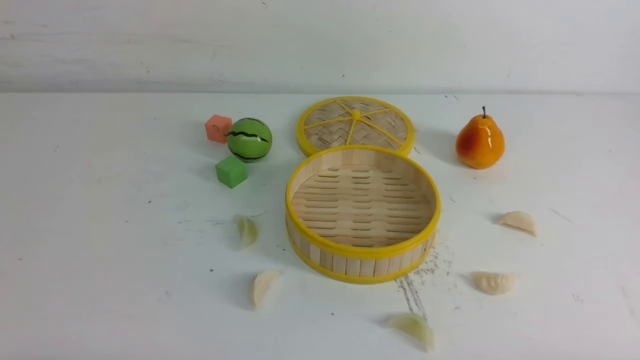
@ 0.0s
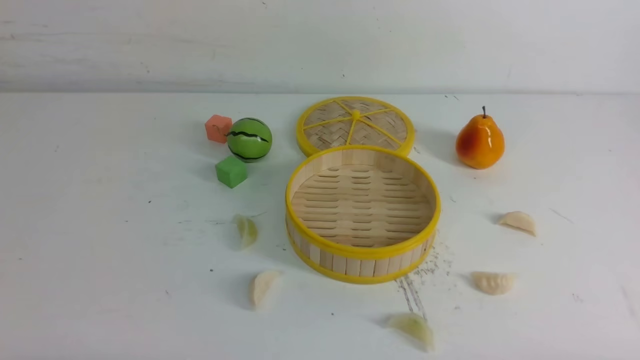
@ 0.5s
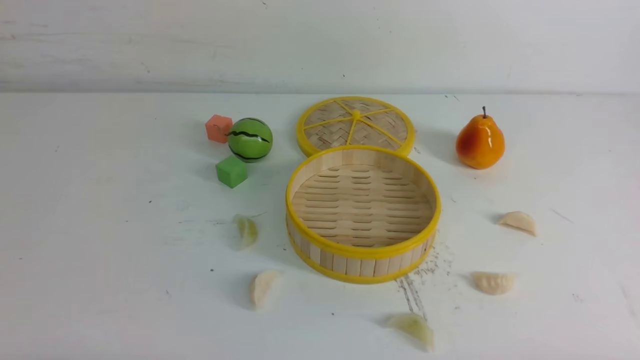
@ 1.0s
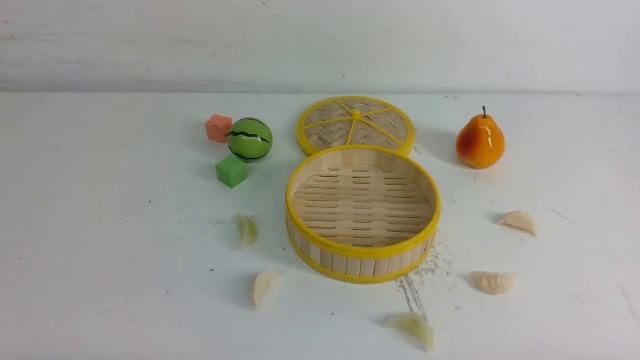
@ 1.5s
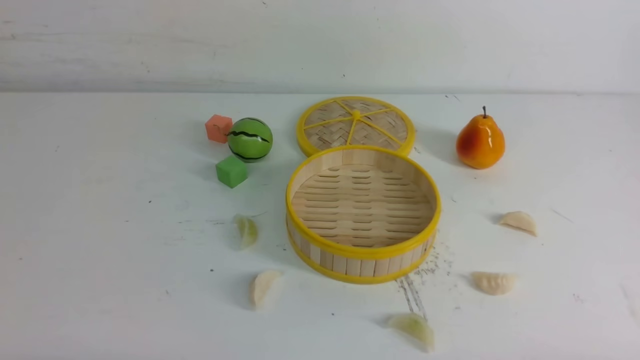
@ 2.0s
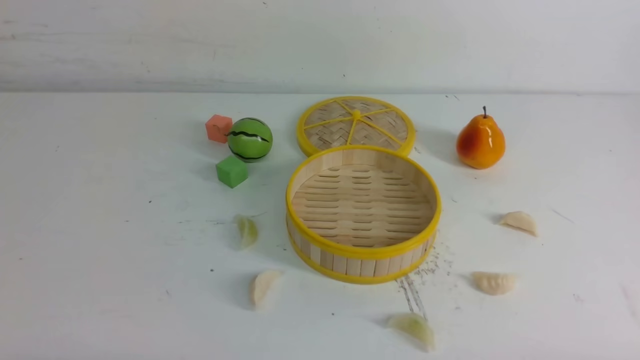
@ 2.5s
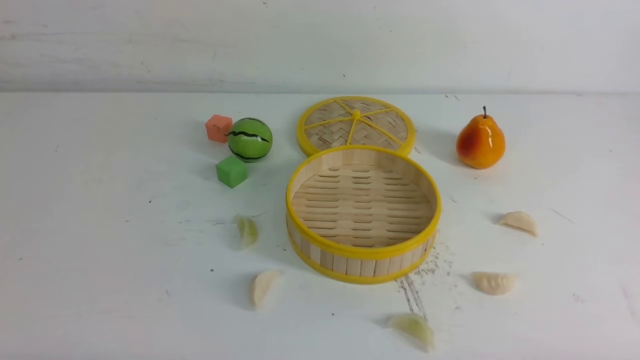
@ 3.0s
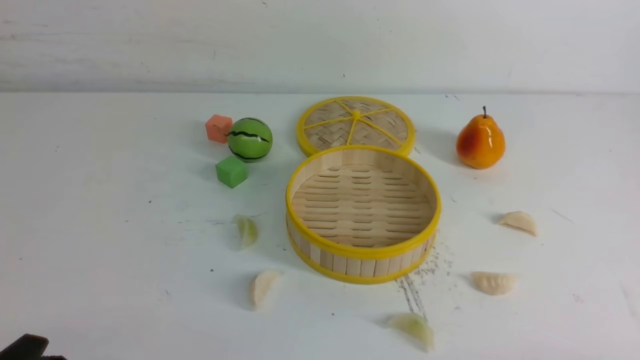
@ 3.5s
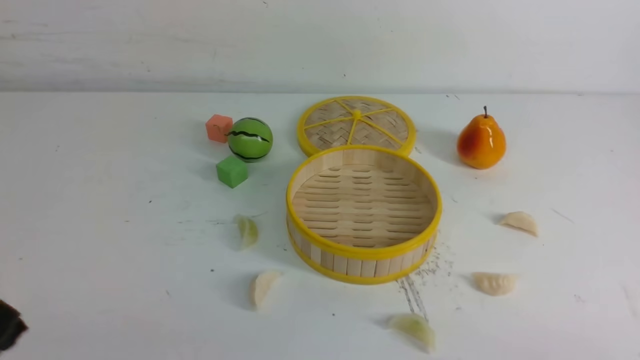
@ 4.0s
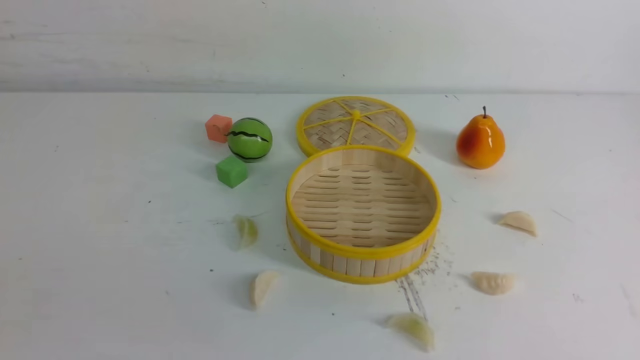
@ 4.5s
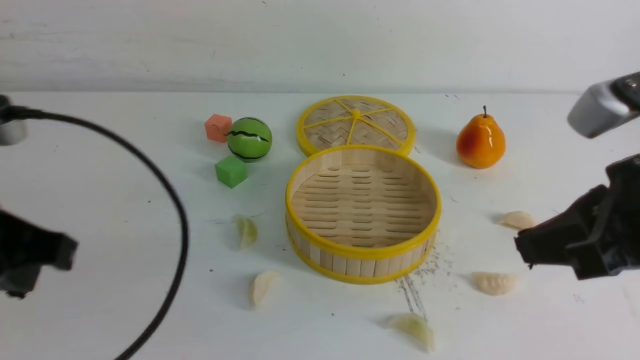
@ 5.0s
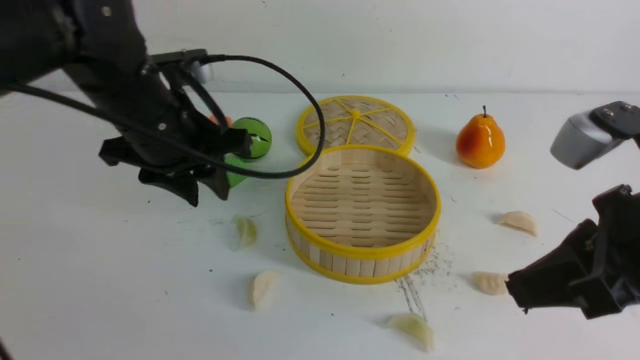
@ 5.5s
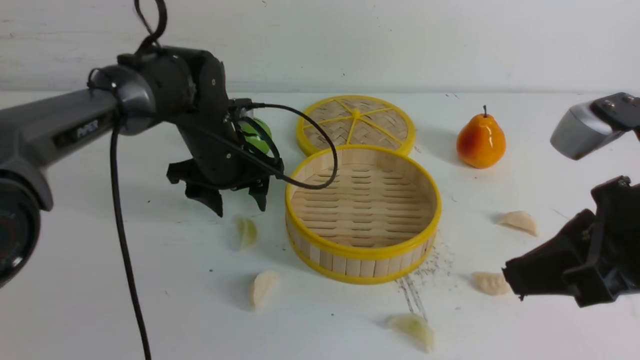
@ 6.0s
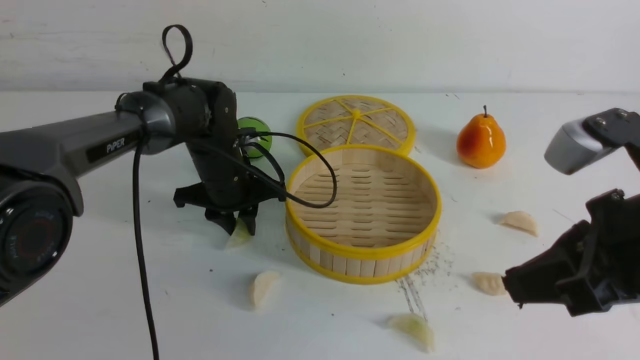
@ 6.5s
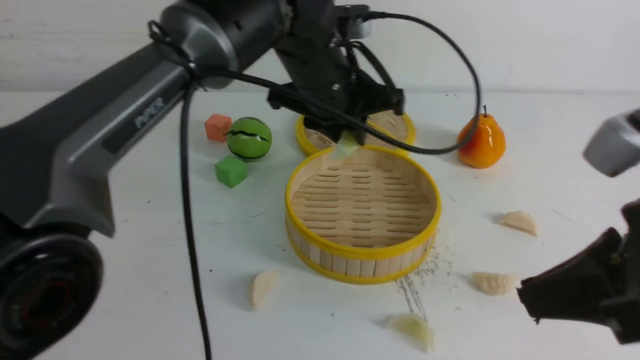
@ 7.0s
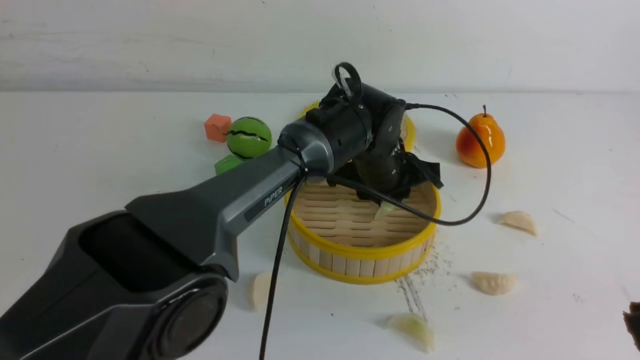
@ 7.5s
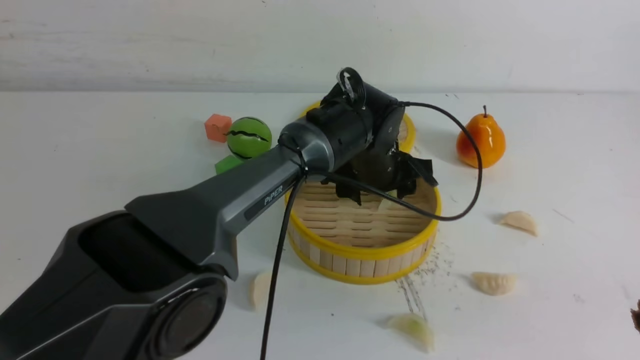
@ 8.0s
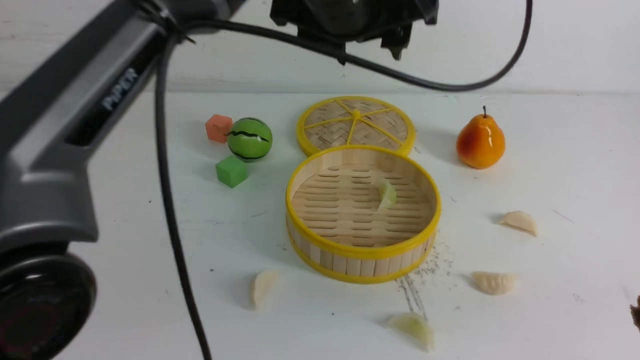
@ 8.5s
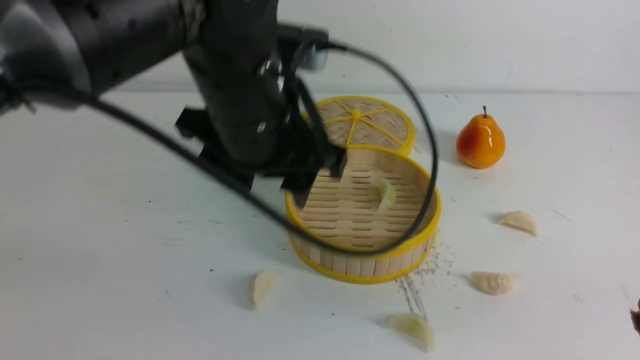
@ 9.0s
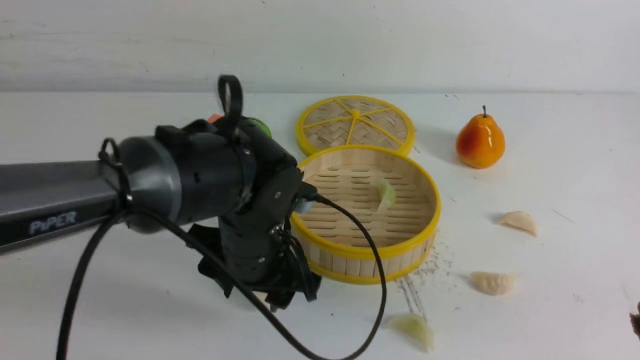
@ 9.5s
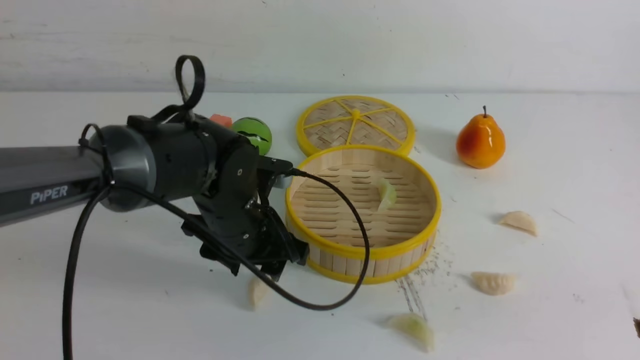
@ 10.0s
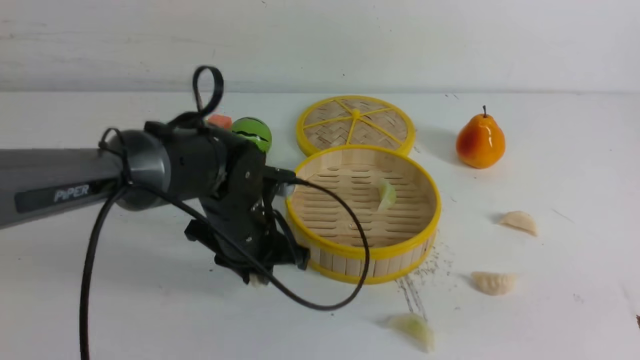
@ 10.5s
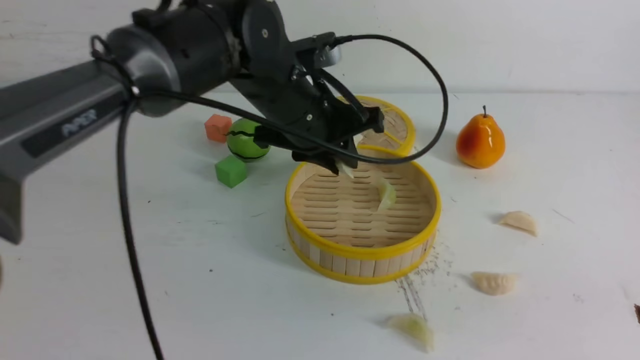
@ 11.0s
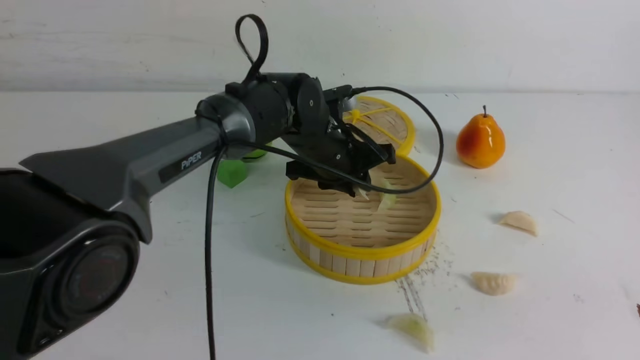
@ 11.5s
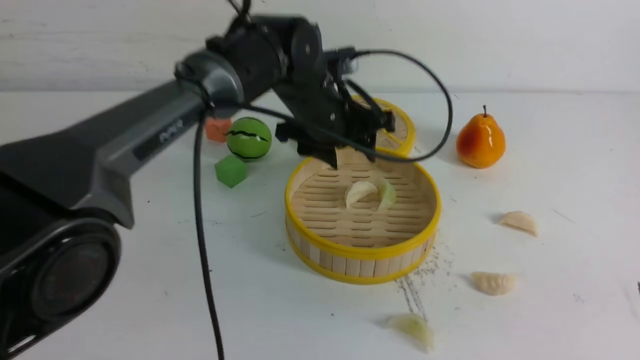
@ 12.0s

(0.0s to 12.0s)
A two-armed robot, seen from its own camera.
Task of the whole recording: put the dumplings into the steamer on the white table.
Step, 0.0s - 6.5s: use the left arm to grab a dumpling.
Step, 7.0s - 8.0s: use the left arm to put the dumpling into the steamer.
Step, 8.5s - 10.0s: use the left arm to grab a dumpling.
Step, 10.5s - 11.5s: use the left arm to put the dumpling into the steamer.
0.0s - 2.0s: Both grippers stay about where they are.
4.0s - 6.0s: The left gripper is displaced forward by approximately 40 cm, and opens its fingers. Meanwhile the right gripper shifts some 20 cm forward, upward and to the left, and closes its fingers.
6.0s - 8.0s: The left gripper is displaced to the right by about 20 cm, and closes and opens again; the right gripper heads backward, covering about 10 cm.
8.0s - 10.0s: The left gripper goes roughly 15 cm to the left and backward, and moves approximately 20 cm upward and comes back.
10.0s - 12.0s: The left gripper moves up and down over approximately 10 cm, changing direction 2 times, and closes, then reopens.

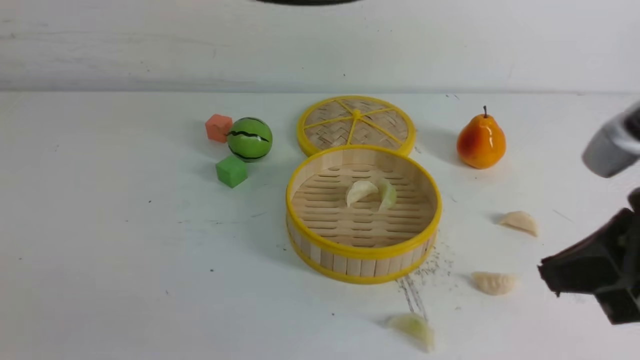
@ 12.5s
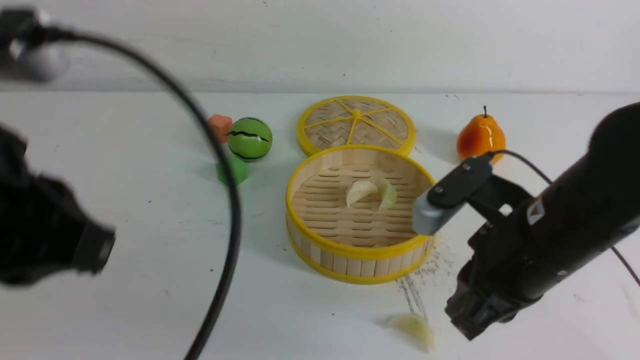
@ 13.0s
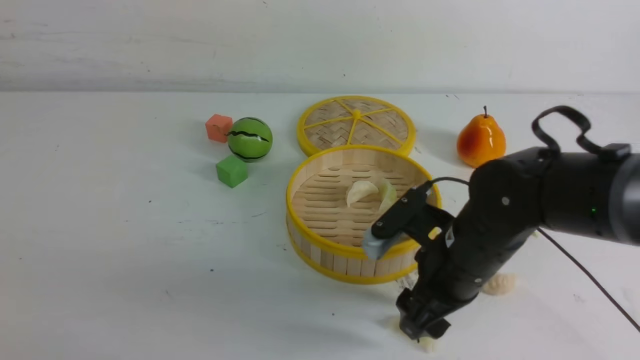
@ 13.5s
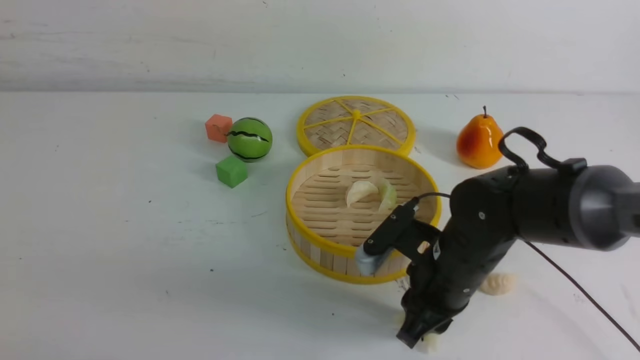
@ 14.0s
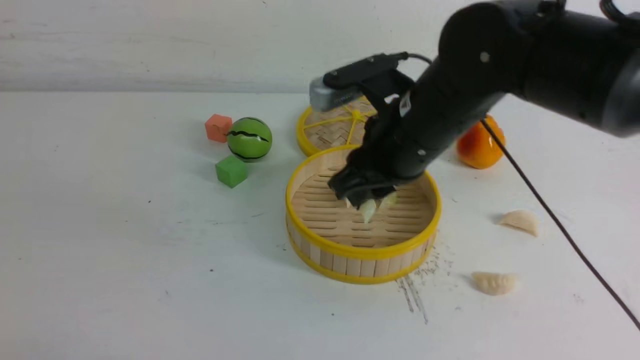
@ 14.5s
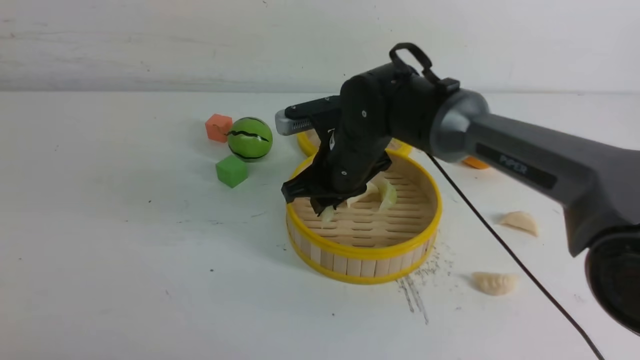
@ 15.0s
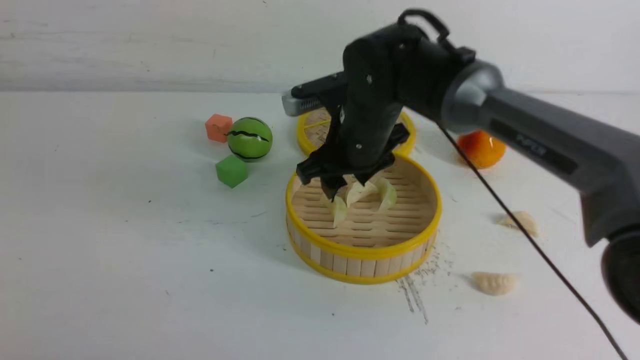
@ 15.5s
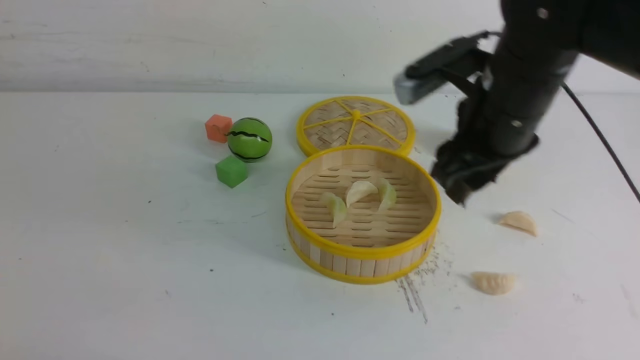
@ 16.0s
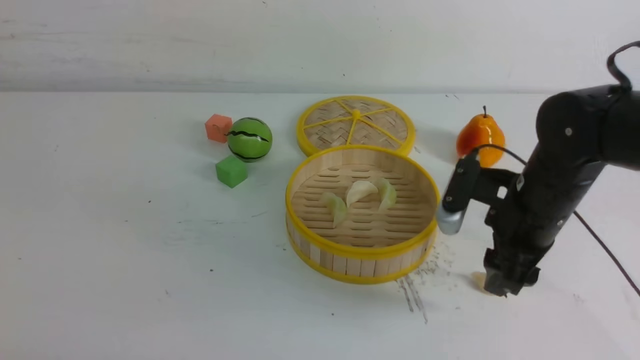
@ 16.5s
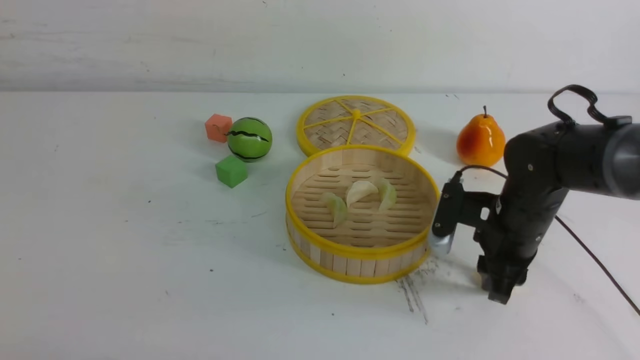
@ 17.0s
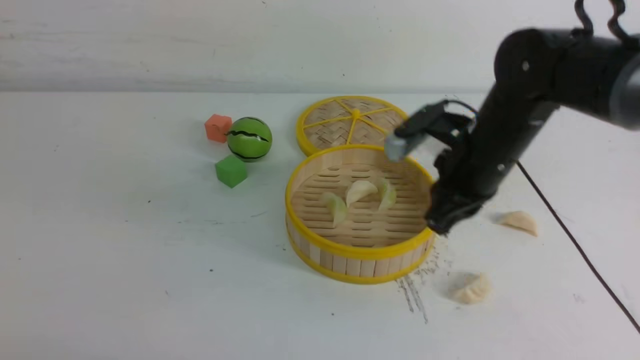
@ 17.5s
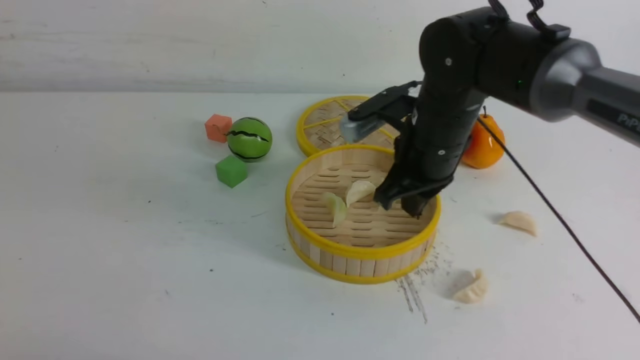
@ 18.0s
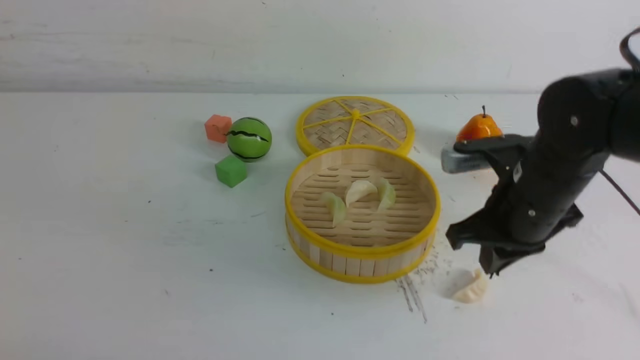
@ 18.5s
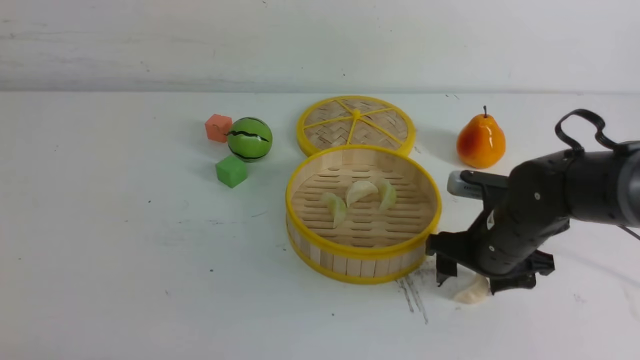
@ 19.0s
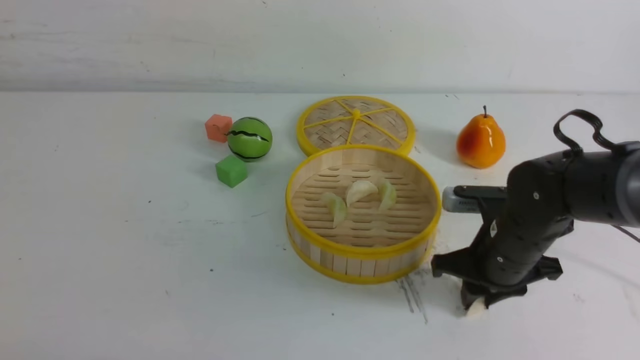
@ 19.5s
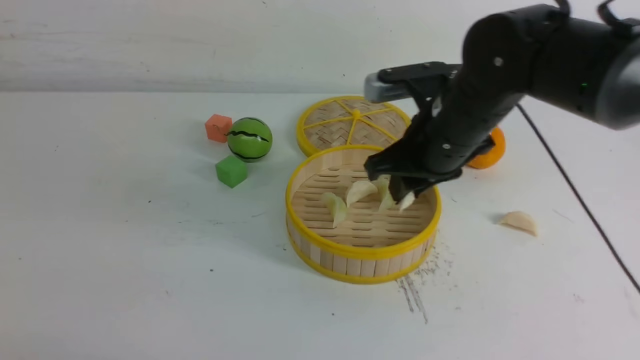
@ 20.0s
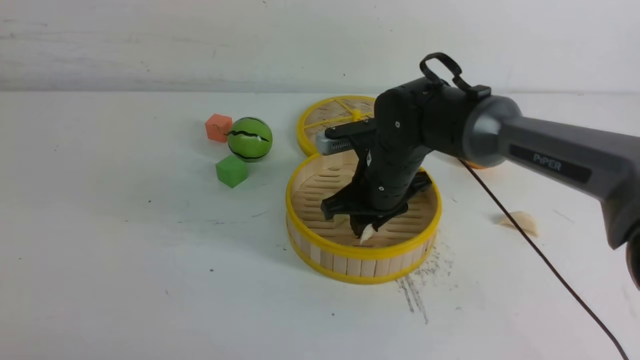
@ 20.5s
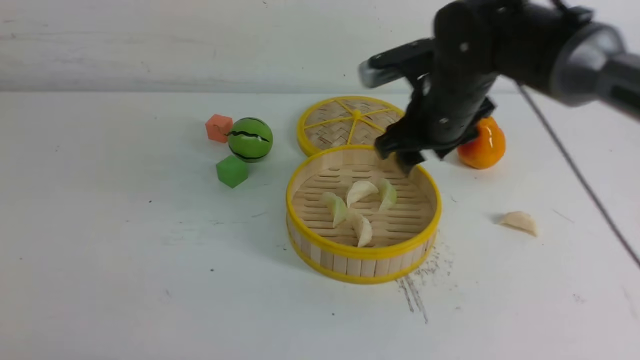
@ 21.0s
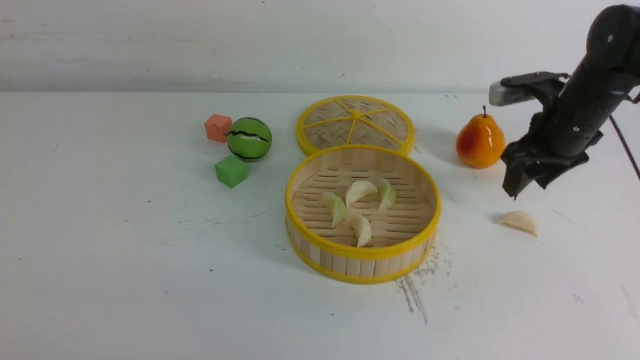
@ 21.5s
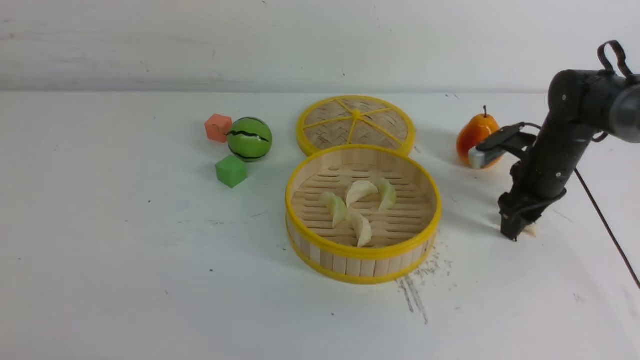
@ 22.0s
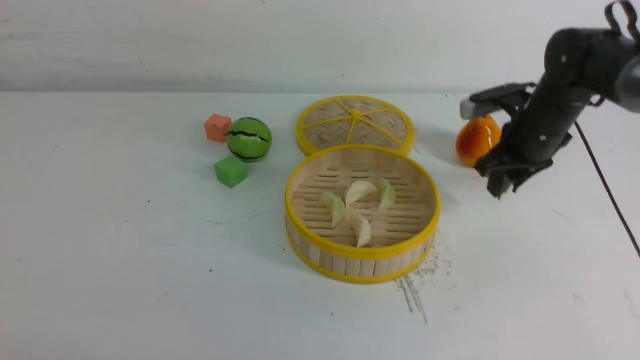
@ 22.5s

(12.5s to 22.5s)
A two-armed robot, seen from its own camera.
Task of the whole recording: put the dumplings into the steamer on the white table.
Step, 12.5s - 14.0s: use the right arm to grab a dumpling.
Step, 14.5s - 15.0s: use the right arm to put the dumpling into the steamer.
Step, 16.0s - 19.5s: use the right arm to grab a dumpling.
Step, 20.0s - 20.5s: use the right arm to put the dumpling into the steamer.
Step, 21.0s - 22.0s: use the right arm to grab a dumpling.
12.5s - 14.5s: The right gripper travels forward and to the left by about 20 cm, goes downward and returns, roughly 15 cm each way, and opens. Meanwhile the left gripper moves backward, downward and to the left, roughly 30 cm.
14.5s - 16.5s: The right gripper shifts approximately 15 cm to the right and downward, and opens.
16.5s - 18.5s: The right gripper moves up and down over approximately 10 cm, changing direction 2 times, and closes up.
18.5s - 20.5s: The right gripper moves to the left and forward, roughly 15 cm, and opens up.
20.5s - 22.5s: The right gripper goes about 15 cm to the right, and opens, then closes again.
